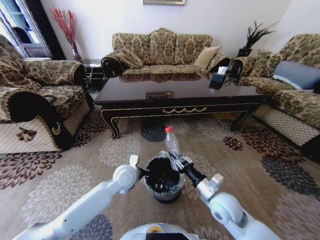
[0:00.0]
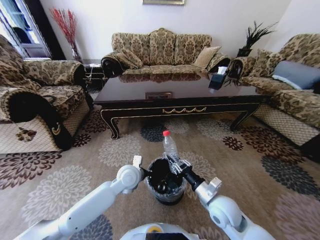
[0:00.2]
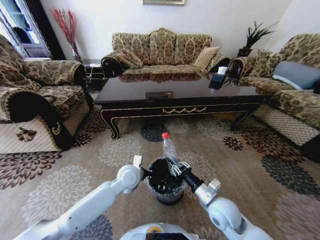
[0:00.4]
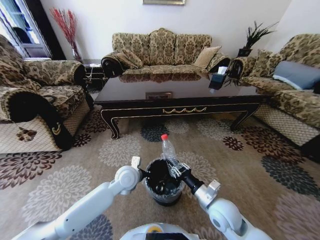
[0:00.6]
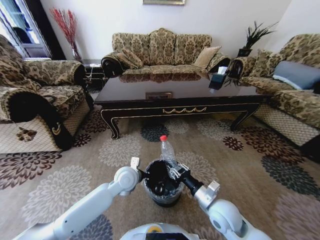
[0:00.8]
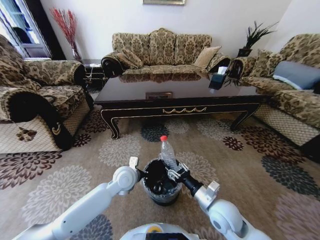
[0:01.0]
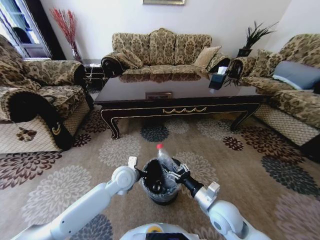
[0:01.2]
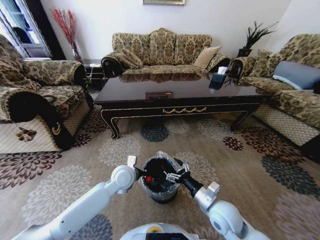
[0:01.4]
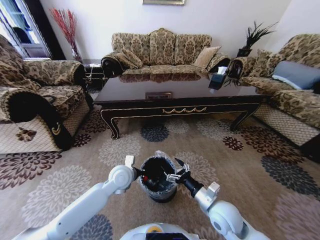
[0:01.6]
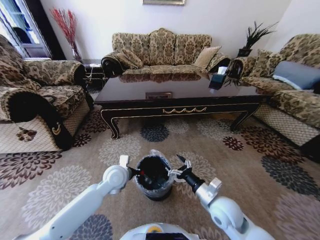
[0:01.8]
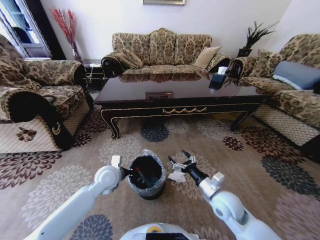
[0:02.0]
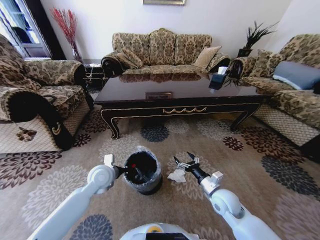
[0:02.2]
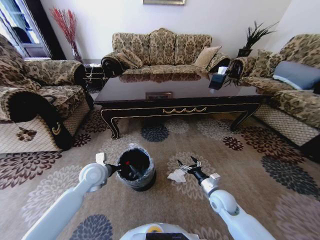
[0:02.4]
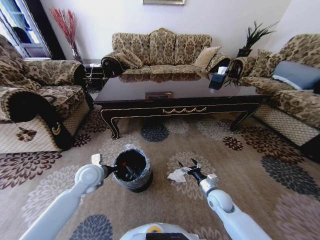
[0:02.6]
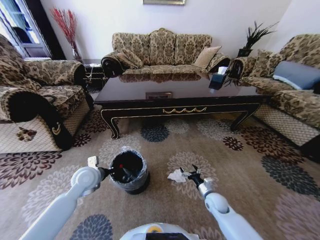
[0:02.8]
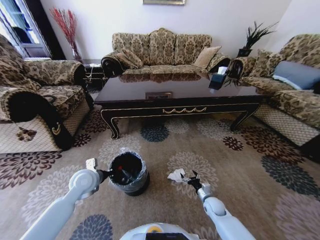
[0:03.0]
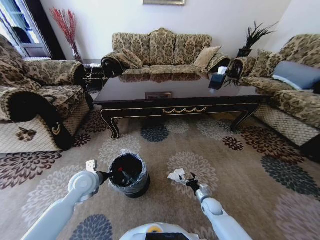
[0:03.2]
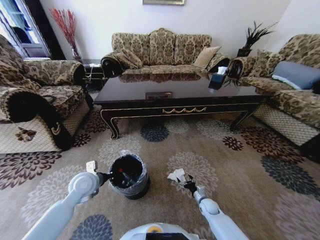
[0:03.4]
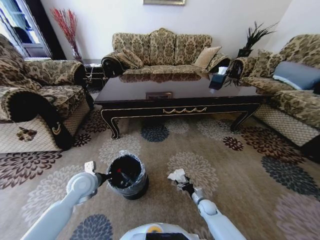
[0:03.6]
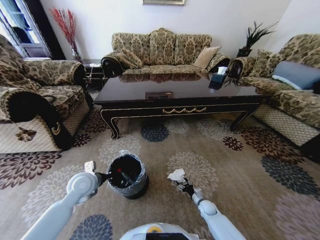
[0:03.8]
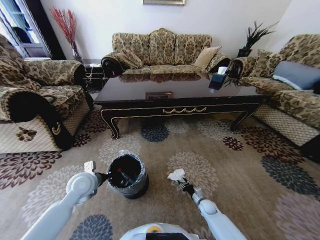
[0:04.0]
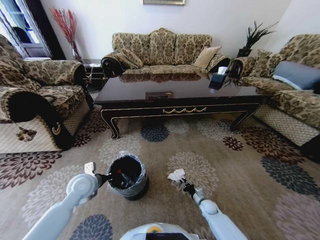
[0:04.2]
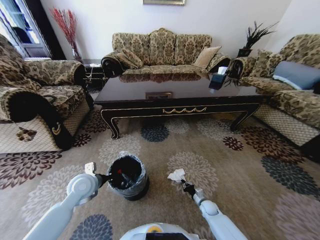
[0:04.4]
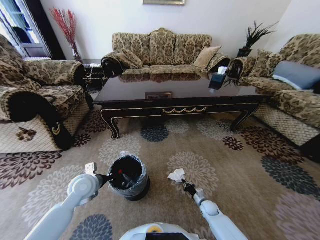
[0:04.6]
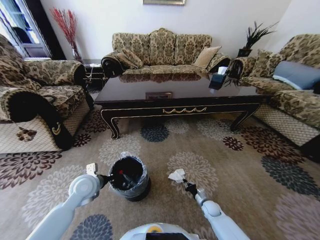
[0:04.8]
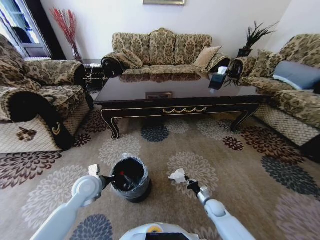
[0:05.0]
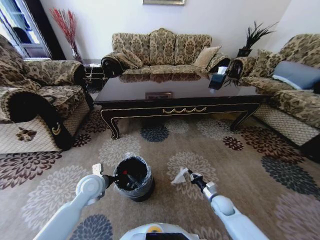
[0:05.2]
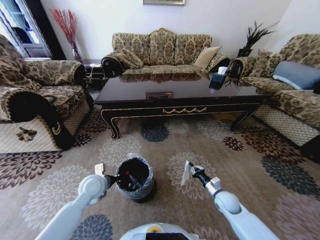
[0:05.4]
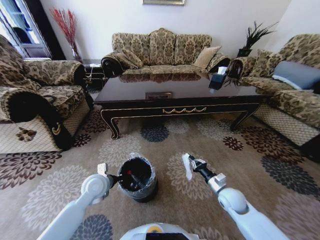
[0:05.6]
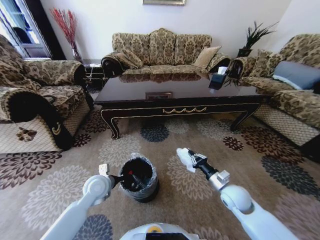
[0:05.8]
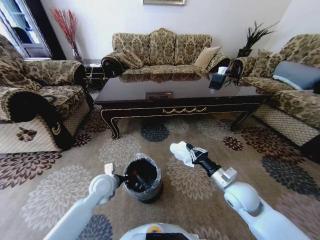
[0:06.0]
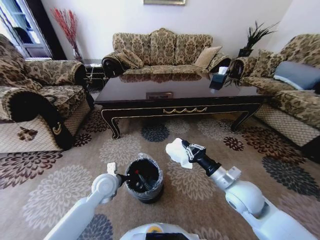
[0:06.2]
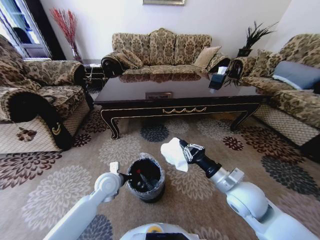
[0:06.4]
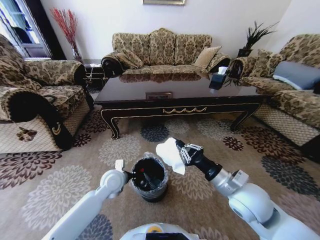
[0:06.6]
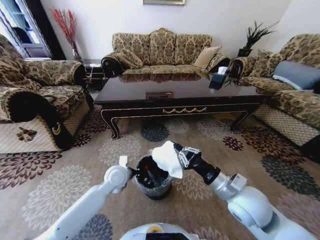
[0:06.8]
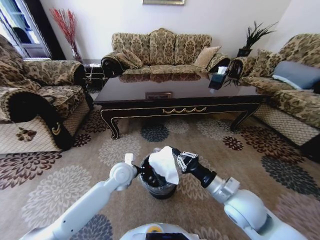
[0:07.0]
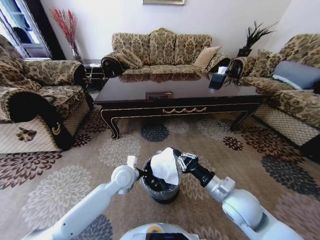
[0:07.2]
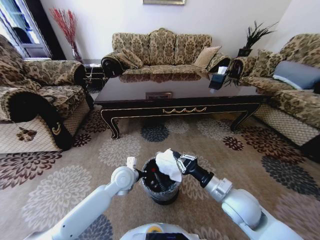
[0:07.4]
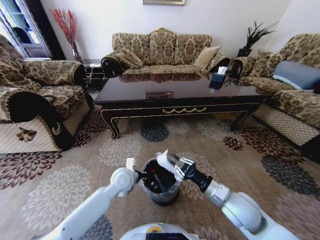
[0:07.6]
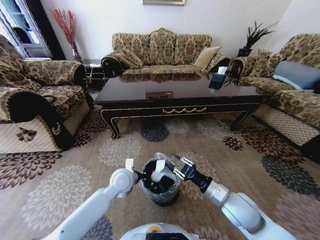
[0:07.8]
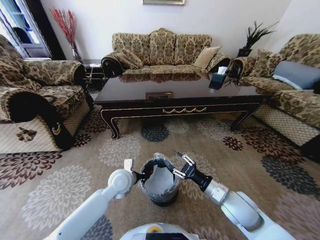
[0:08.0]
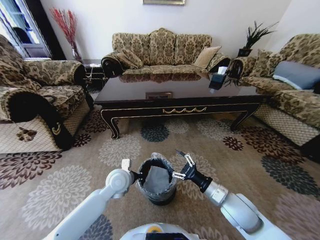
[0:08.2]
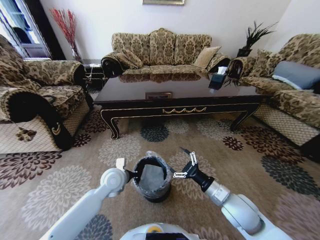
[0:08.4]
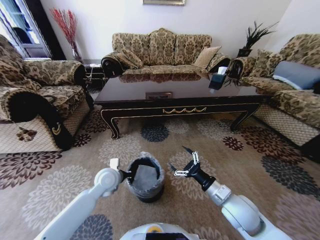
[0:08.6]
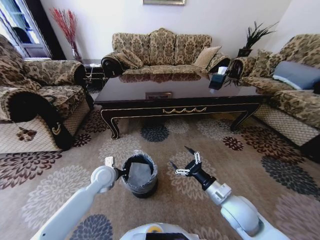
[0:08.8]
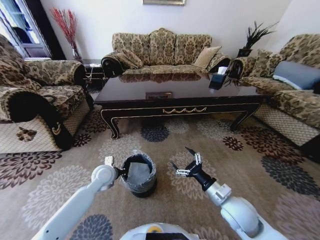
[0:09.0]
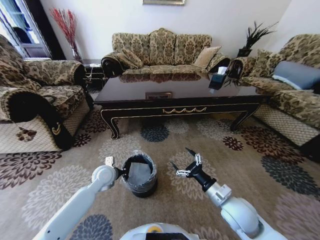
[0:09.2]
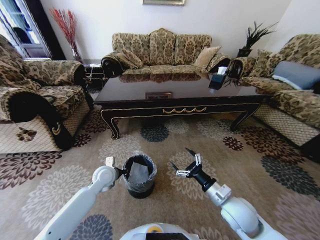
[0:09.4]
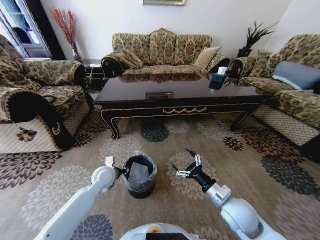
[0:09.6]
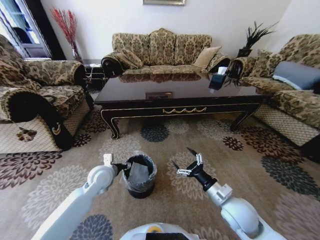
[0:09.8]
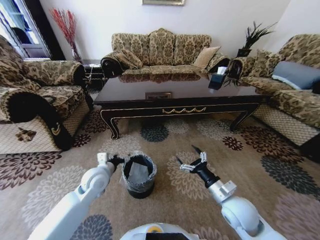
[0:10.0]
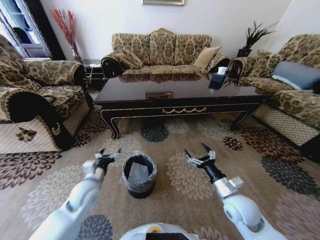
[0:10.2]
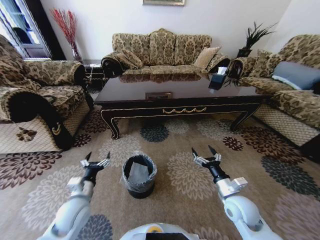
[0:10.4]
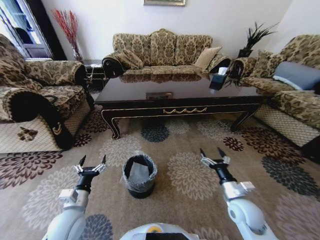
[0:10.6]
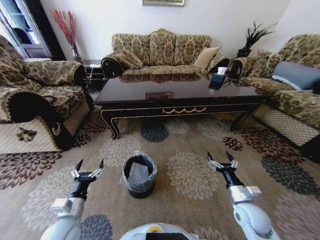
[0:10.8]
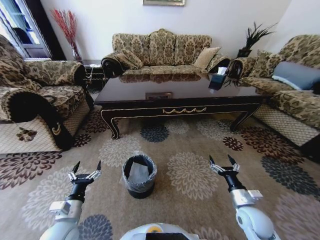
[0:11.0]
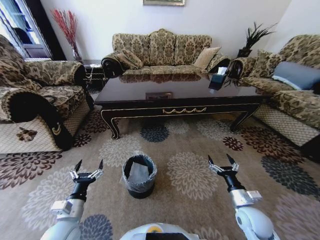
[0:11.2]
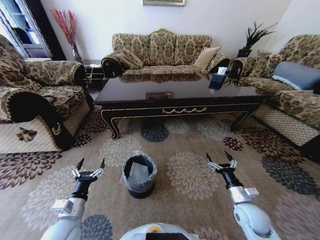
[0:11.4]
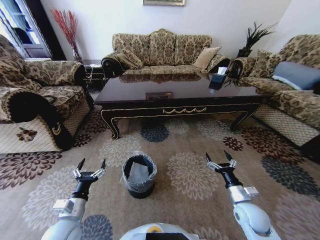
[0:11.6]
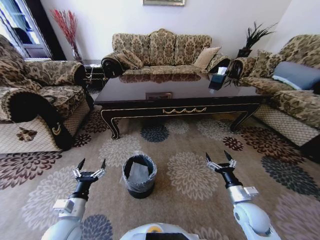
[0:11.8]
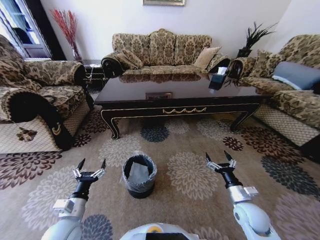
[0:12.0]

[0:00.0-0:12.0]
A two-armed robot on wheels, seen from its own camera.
Task of the whole recording: Move to the front of the table and pick up the trash from the floor, then place it into the trash bin.
0:00.0 to 0:01.6: The right gripper opens.
0:01.6 to 0:03.0: The right gripper travels downward by about 20 cm. Meanwhile the left gripper moves to the left, some 15 cm.
0:03.0 to 0:04.4: The right gripper travels downward by some 10 cm, and closes.
0:04.4 to 0:06.0: The right gripper travels upward by some 30 cm. The left gripper is displaced to the right by some 5 cm.
0:06.0 to 0:07.6: The right gripper reaches some 10 cm upward, then returns. Meanwhile the left gripper moves to the right, about 10 cm.
0:07.6 to 0:09.0: The right gripper opens its fingers. Meanwhile the left gripper is displaced to the left by roughly 10 cm.
0:09.0 to 0:10.4: The left gripper is displaced backward and to the left by roughly 15 cm, and opens its fingers.
0:10.4 to 0:12.0: The right gripper moves to the right, some 5 cm. The left gripper heads backward, covering some 5 cm.

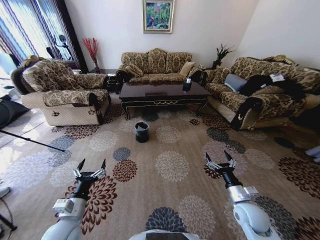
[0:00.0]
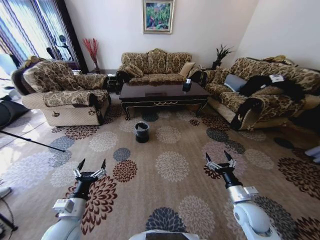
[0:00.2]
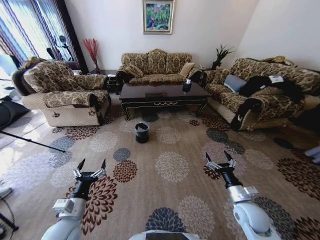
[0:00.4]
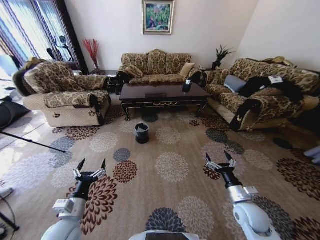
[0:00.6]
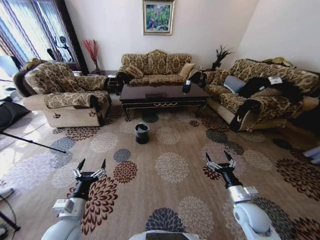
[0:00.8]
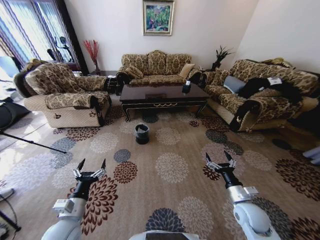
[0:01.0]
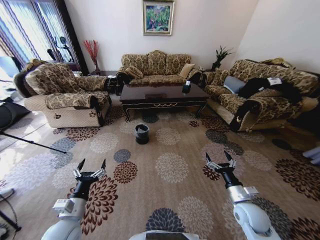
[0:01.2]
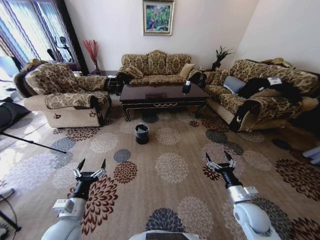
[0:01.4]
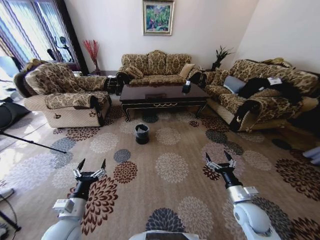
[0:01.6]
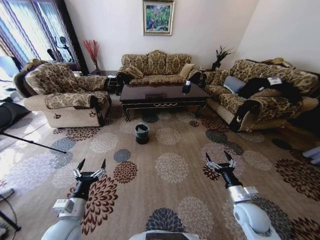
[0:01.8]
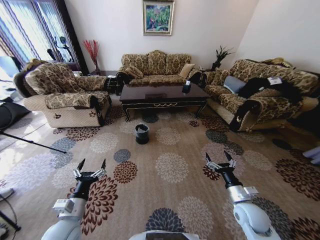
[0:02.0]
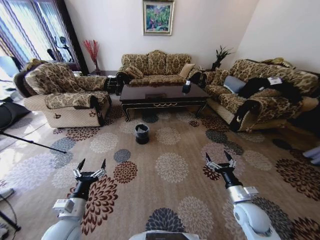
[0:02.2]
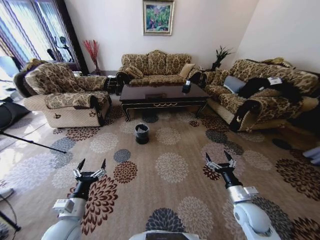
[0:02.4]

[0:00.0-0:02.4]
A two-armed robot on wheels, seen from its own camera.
Task of the whole recording: Move to the front of the table and pick up the trash from the floor, then place it into the trash bin.
0:00.0 to 0:02.4: The two grippers keep their place.
